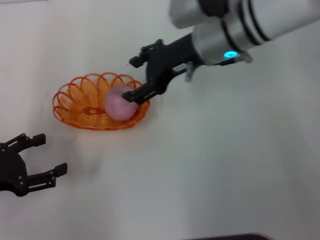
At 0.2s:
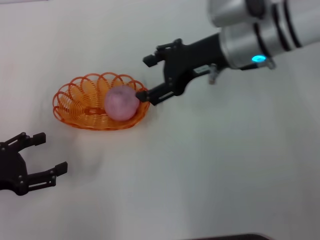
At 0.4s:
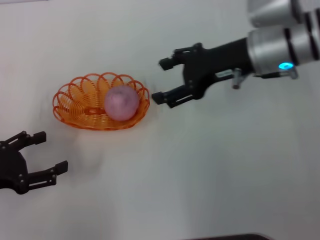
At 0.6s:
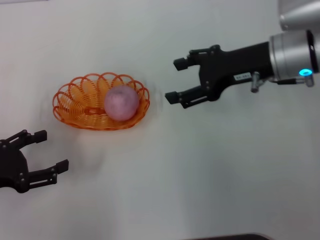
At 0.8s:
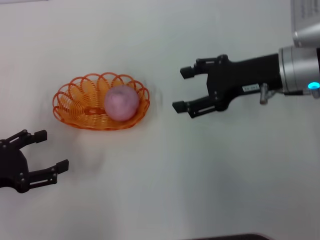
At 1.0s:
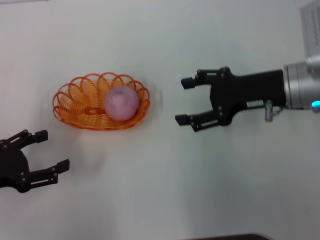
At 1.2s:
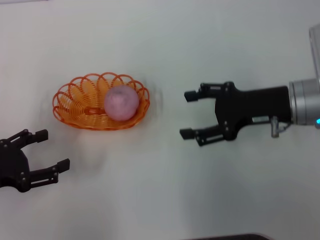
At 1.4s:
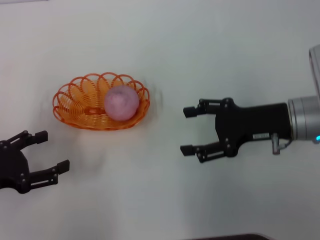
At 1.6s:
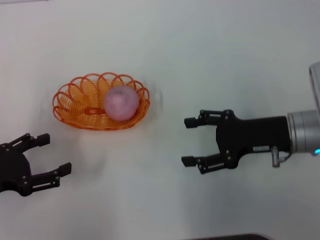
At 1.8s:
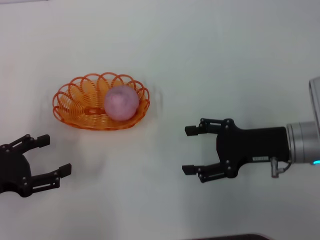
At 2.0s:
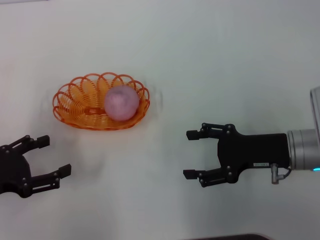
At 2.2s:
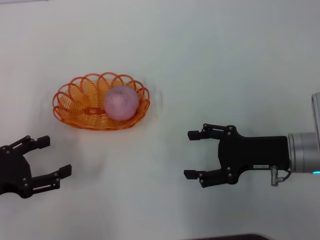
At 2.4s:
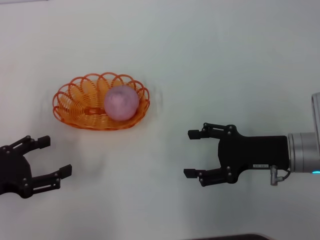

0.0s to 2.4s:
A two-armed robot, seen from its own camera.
0.0s to 1.2s: The right gripper goes some 15 cm to the right, backward and downward.
1.2s to 2.4s: The right gripper shifts some 5 cm downward.

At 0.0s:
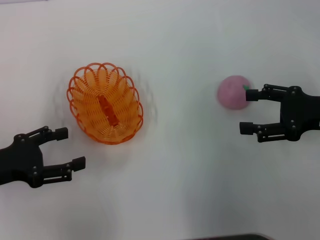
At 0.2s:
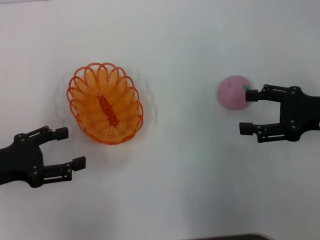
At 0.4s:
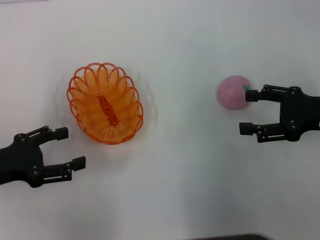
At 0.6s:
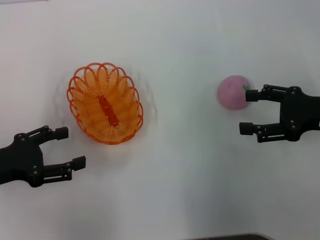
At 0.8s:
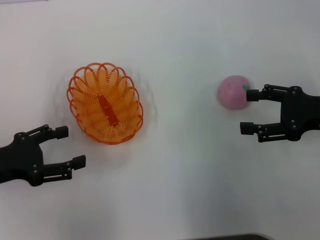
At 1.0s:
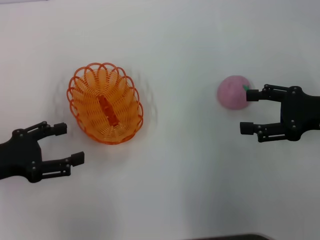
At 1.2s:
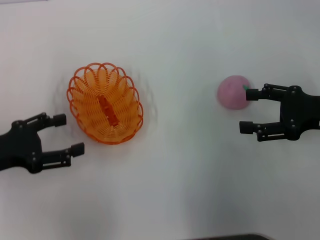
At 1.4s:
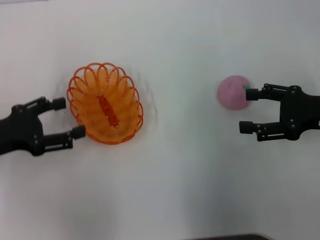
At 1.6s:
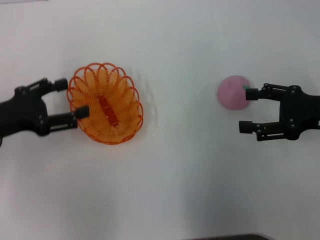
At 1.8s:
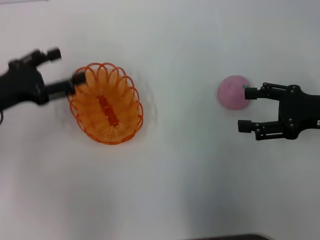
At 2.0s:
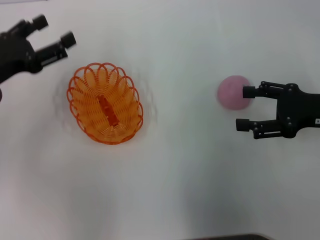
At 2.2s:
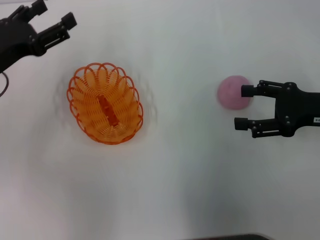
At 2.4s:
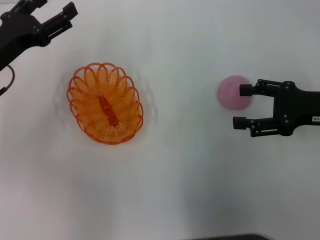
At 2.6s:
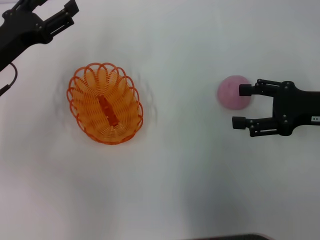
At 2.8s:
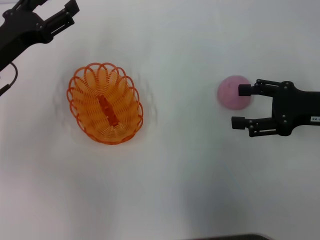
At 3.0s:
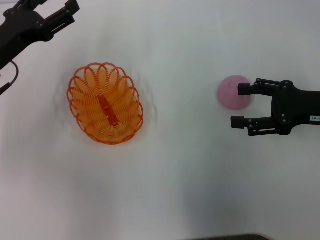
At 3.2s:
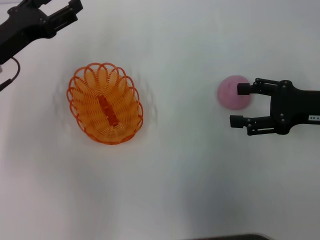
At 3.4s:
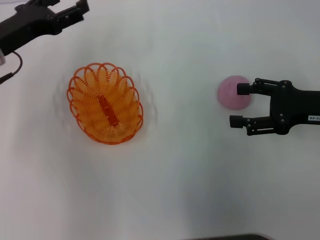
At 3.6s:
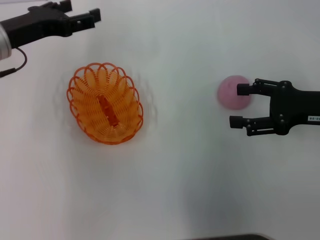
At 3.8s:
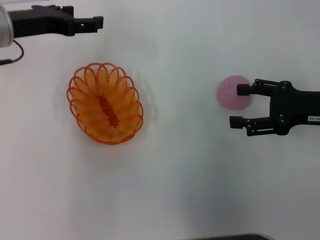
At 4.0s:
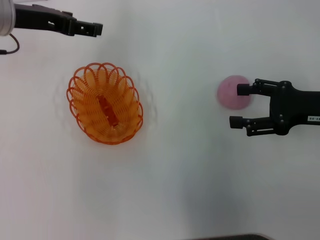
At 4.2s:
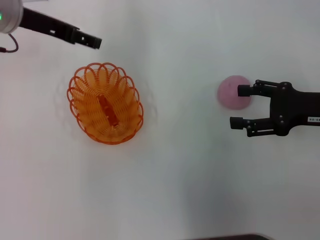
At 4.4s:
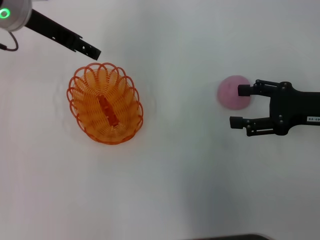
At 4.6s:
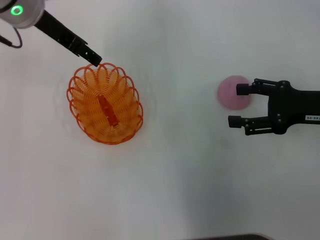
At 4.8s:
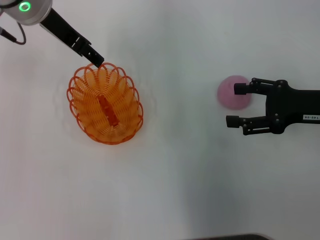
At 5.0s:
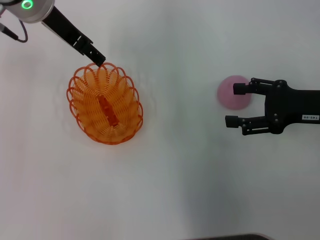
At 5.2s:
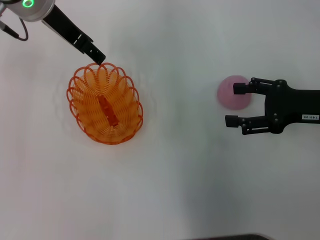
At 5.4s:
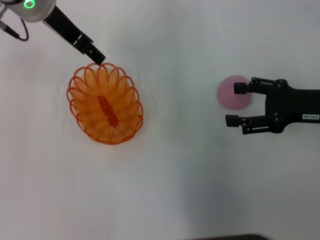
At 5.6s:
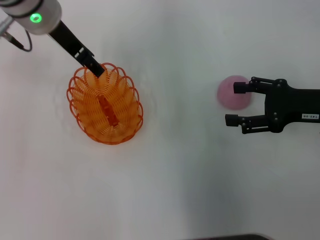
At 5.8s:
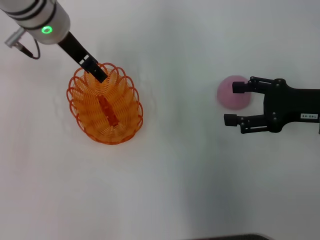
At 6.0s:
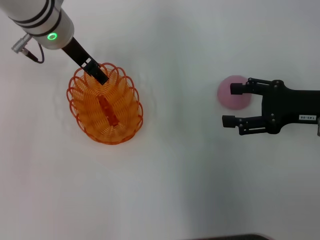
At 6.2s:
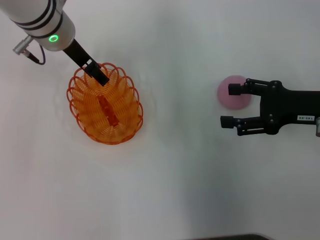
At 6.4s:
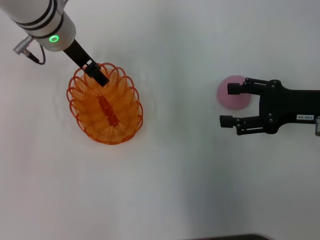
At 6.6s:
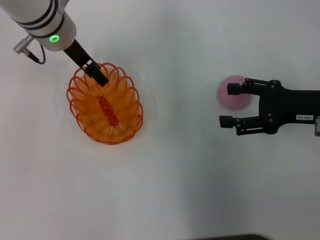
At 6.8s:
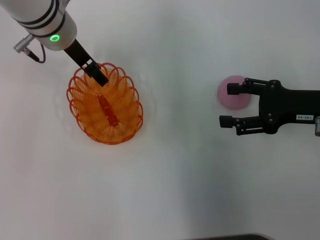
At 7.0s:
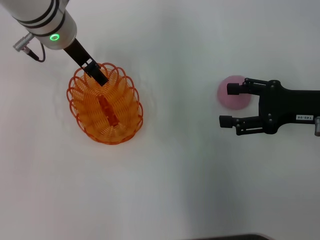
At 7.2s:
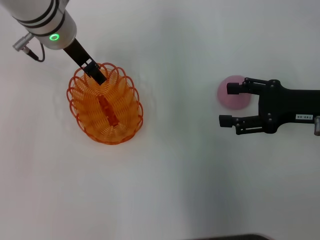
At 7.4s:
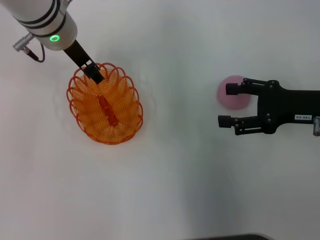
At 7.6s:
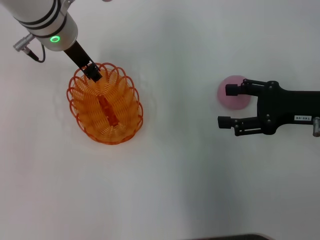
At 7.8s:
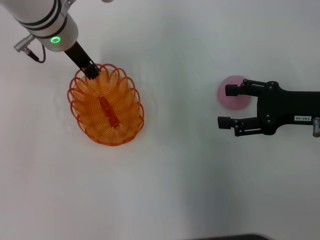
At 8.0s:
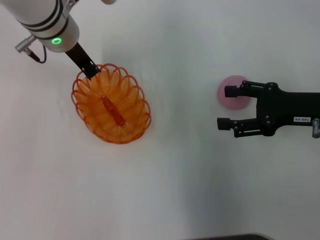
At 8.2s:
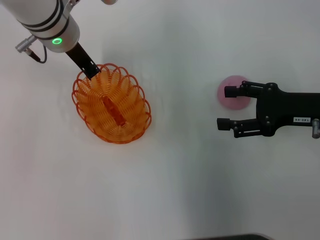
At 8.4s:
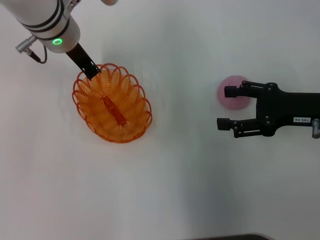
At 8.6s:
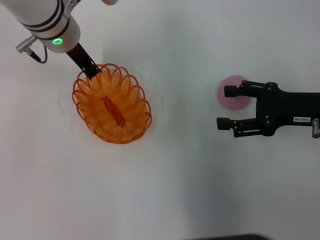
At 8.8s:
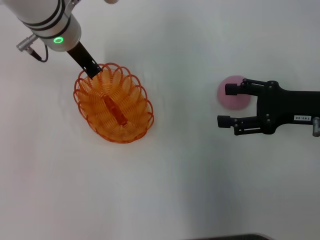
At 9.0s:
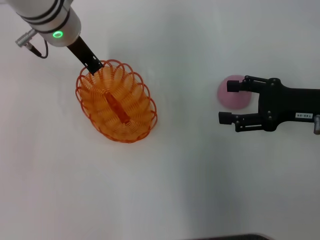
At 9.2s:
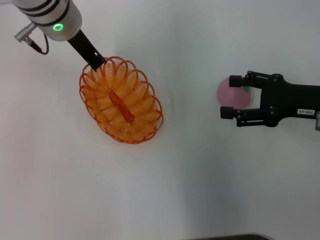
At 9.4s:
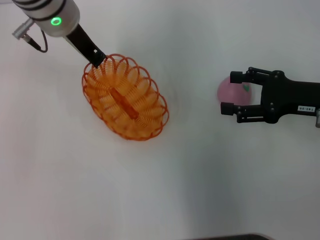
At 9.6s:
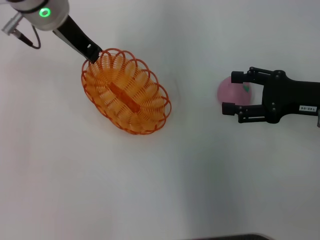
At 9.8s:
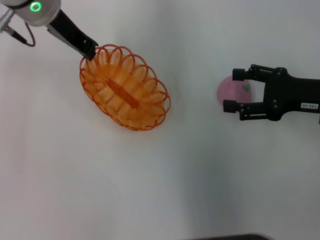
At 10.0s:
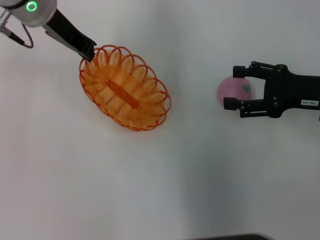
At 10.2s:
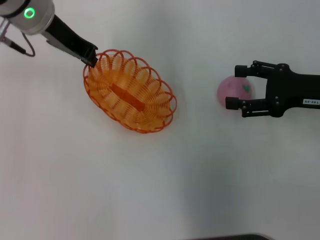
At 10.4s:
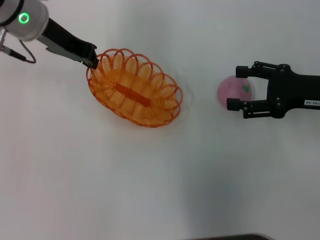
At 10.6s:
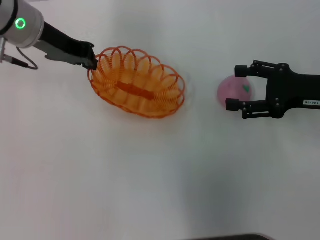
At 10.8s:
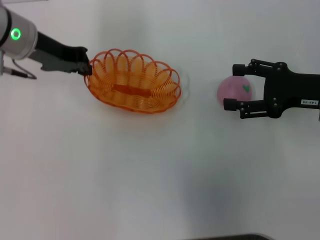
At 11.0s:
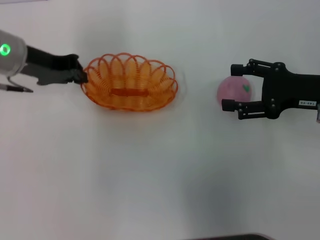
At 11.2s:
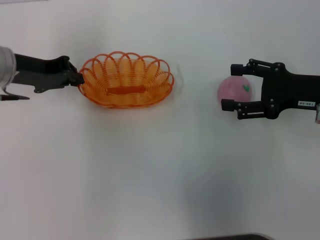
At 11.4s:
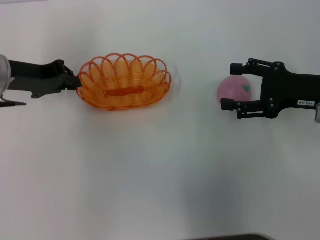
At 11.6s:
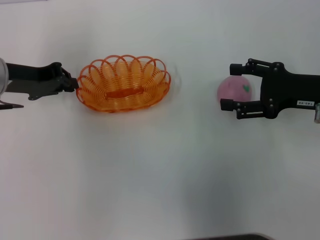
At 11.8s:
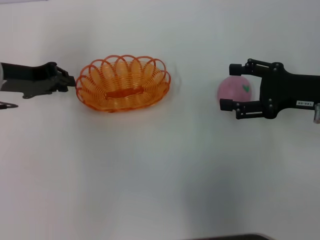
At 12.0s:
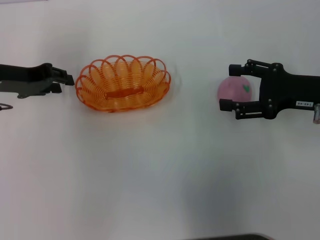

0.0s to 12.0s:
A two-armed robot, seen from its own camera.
Step, 0.0s to 9.2s: Pick up the basket with the left gripper.
0.0s to 1.6s: The left gripper shifts by about 5 cm.
1.6s to 3.0s: The left gripper moves forward, about 5 cm.
3.0s to 4.4s: The left gripper travels upward, to the right and forward by about 15 cm.
4.4s to 6.0s: The left gripper moves to the right, approximately 5 cm.
6.0s to 7.6s: There are only small adjustments of the grippers.
7.6s to 9.0s: The left gripper closes its fingers.
9.0s to 10.4s: The left gripper is displaced to the left by approximately 5 cm.
10.4s to 12.0s: The left gripper heads to the left, downward and backward, covering approximately 15 cm.

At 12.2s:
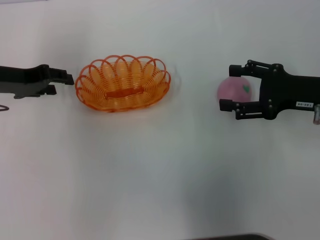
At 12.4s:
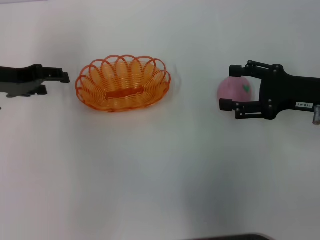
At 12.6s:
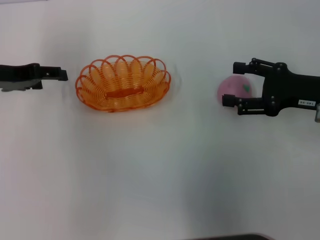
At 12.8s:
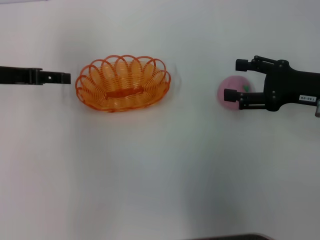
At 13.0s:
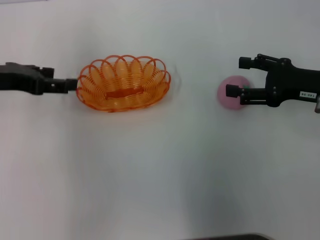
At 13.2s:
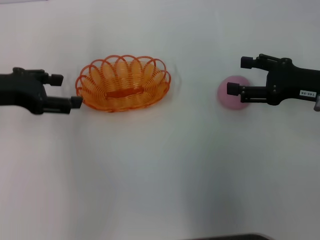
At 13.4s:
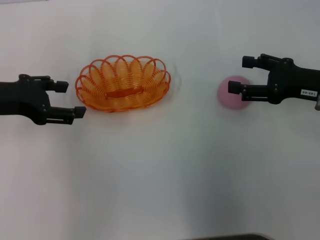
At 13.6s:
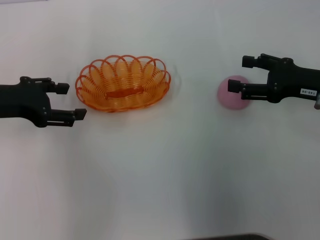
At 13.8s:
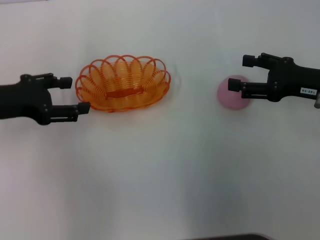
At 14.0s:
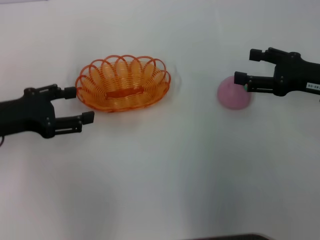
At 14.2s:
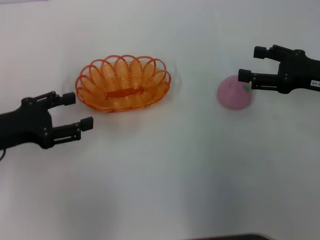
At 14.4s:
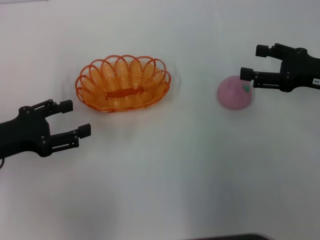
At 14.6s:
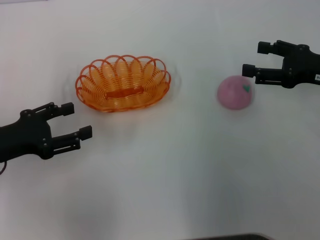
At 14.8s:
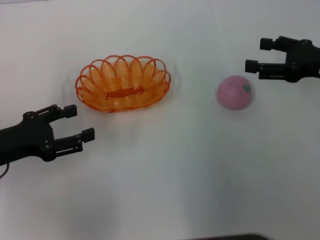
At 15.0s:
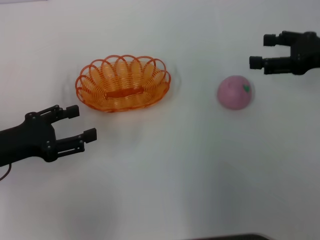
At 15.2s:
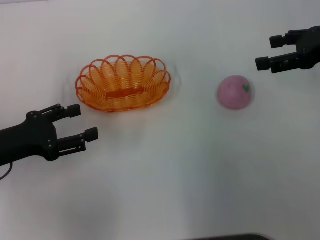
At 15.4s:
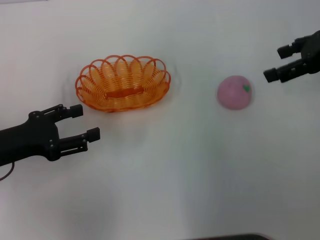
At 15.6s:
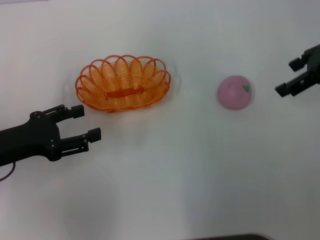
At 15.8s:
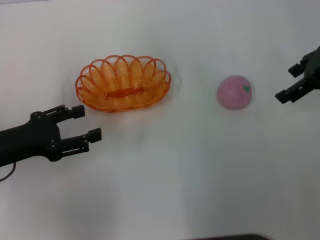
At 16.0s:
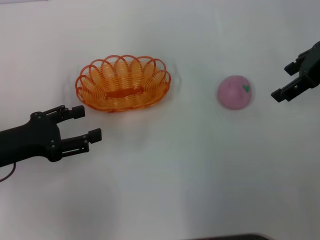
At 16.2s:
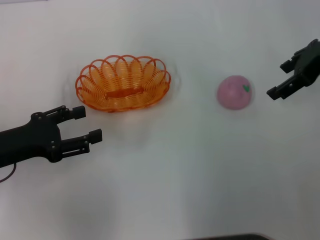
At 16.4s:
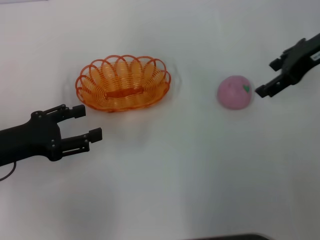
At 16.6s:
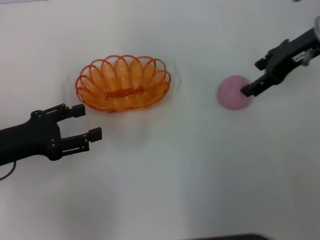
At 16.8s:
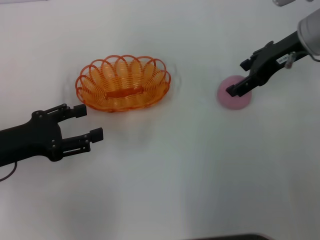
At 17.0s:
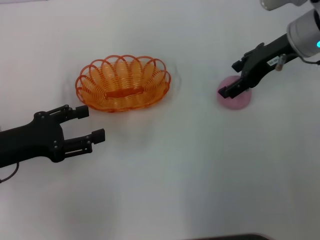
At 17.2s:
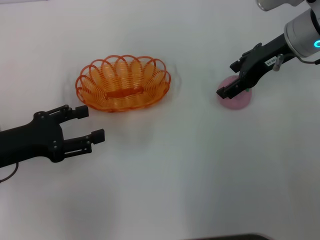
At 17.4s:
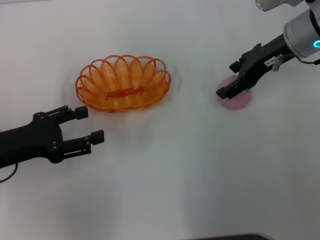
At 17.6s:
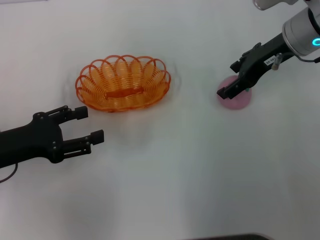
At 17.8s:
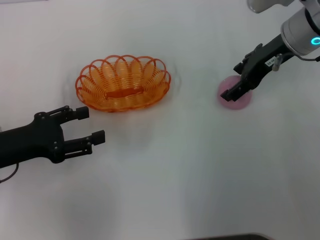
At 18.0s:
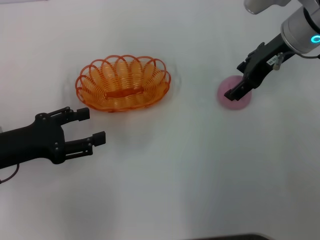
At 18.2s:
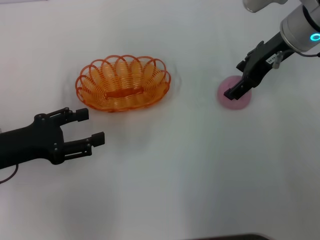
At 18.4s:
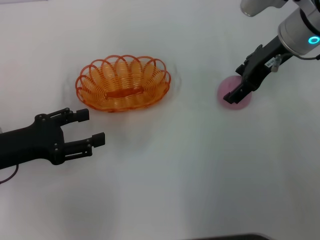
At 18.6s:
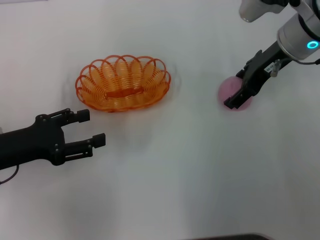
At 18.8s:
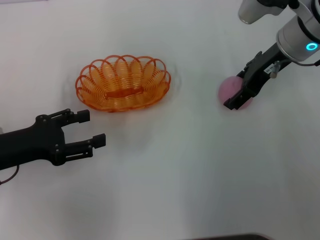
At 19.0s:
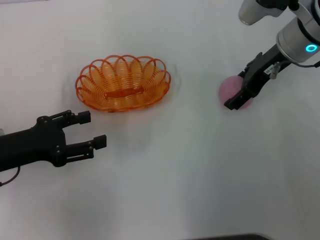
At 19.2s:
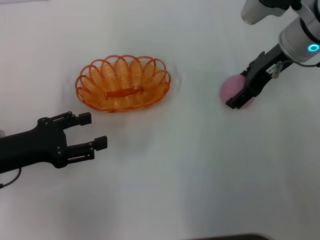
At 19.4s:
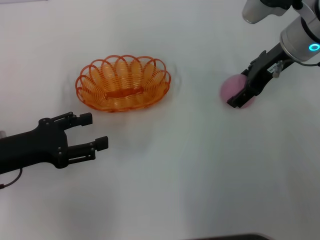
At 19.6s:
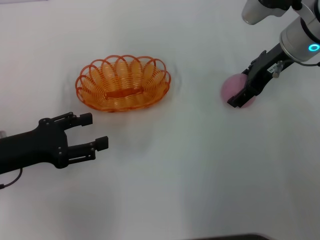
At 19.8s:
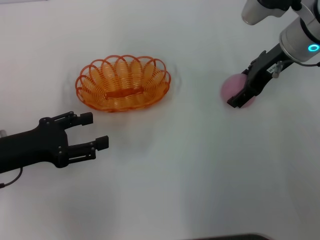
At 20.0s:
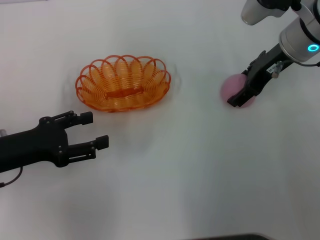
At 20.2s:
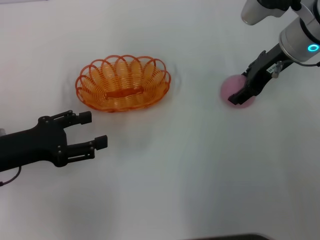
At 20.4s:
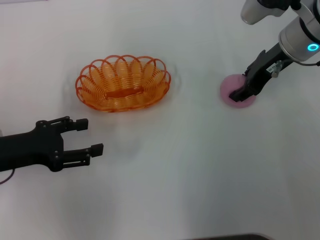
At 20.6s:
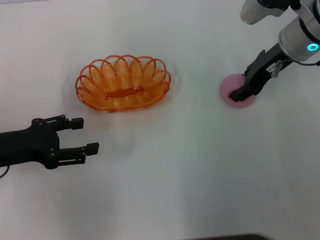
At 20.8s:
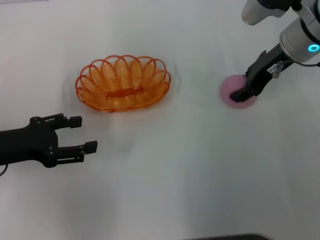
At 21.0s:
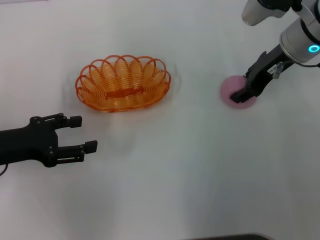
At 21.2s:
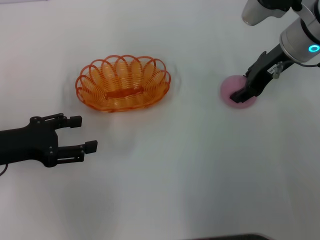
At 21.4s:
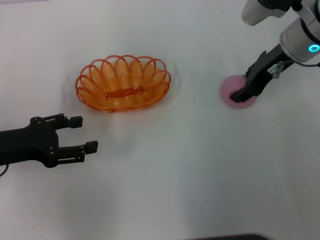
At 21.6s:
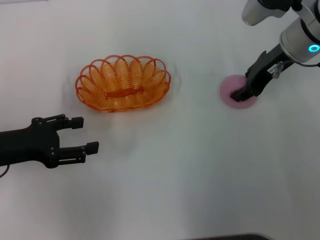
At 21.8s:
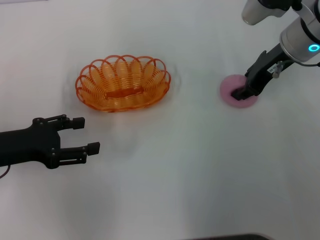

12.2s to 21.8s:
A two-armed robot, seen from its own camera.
12.2s to 13.8s: The left gripper is displaced backward by roughly 5 cm, and opens its fingers.
13.8s to 15.4s: The left gripper is displaced backward and downward by approximately 10 cm, while the right gripper heads upward, covering about 10 cm.
15.4s to 17.0s: The right gripper heads to the left, covering roughly 10 cm.
17.0s to 18.6s: The grippers make only small movements.
18.6s to 20.2s: The two grippers keep their place.
20.2s to 21.8s: The right gripper closes.
